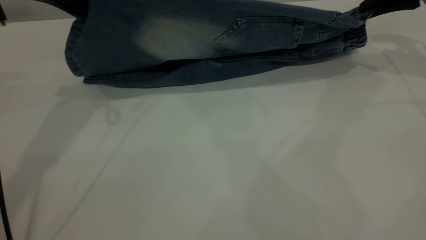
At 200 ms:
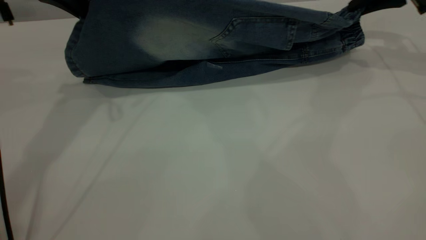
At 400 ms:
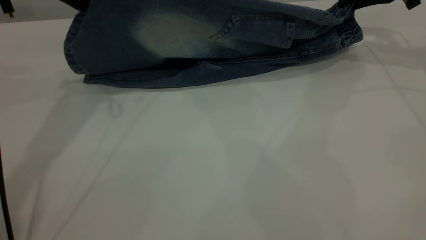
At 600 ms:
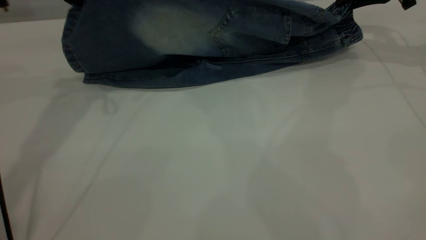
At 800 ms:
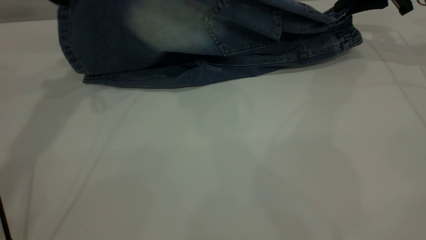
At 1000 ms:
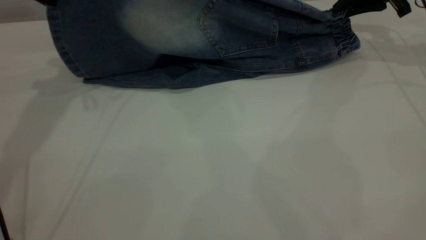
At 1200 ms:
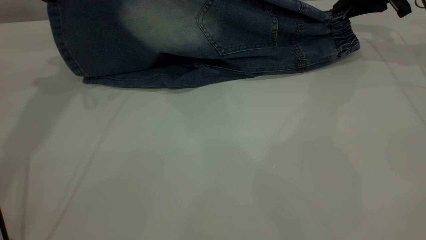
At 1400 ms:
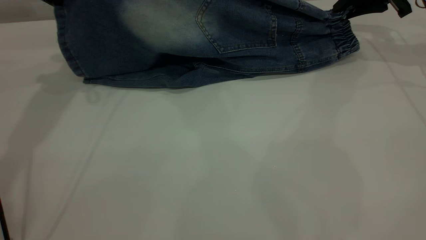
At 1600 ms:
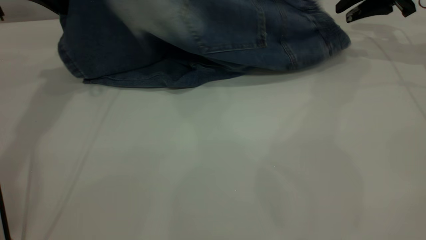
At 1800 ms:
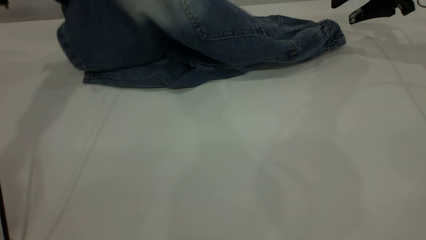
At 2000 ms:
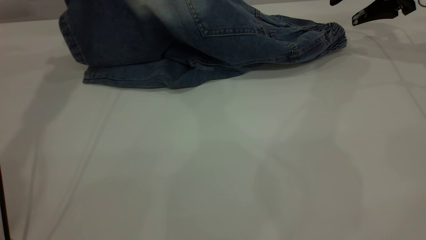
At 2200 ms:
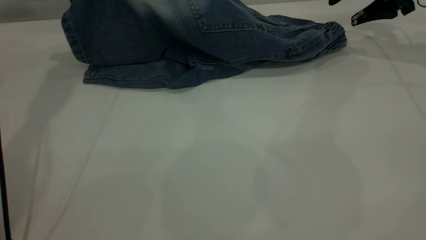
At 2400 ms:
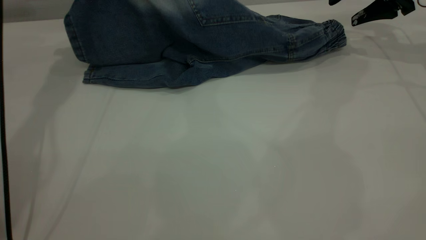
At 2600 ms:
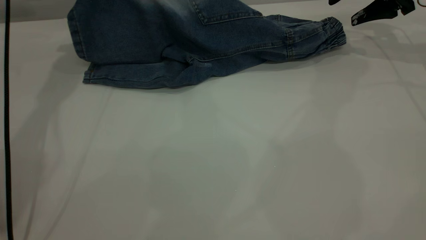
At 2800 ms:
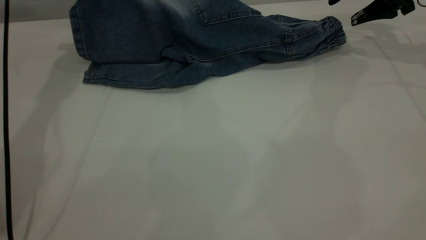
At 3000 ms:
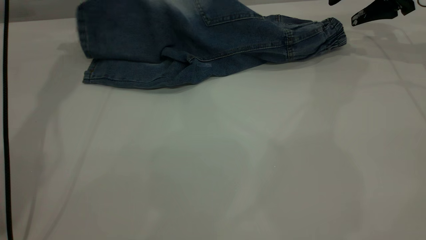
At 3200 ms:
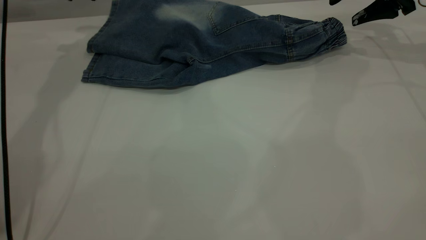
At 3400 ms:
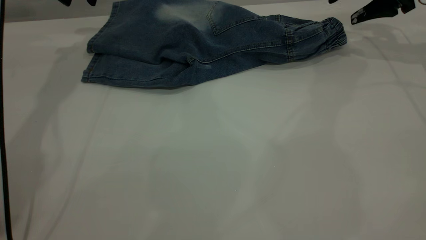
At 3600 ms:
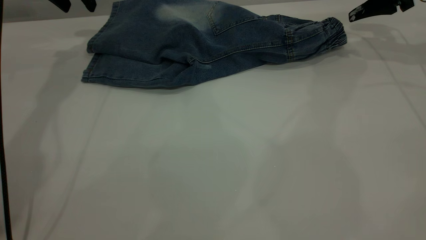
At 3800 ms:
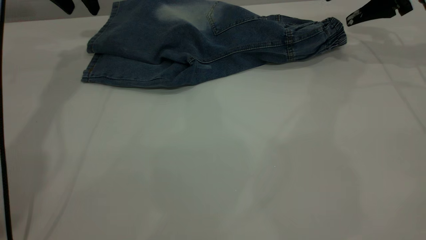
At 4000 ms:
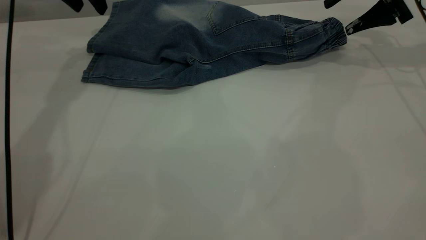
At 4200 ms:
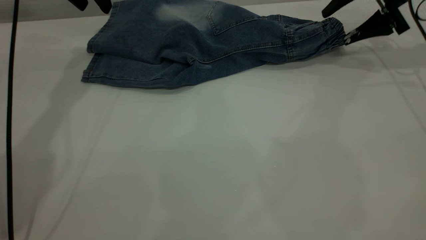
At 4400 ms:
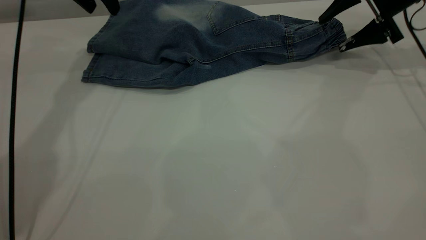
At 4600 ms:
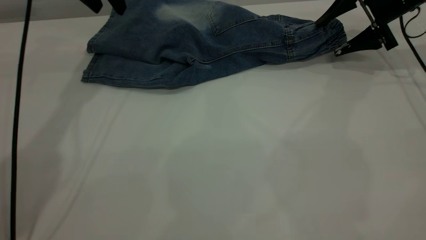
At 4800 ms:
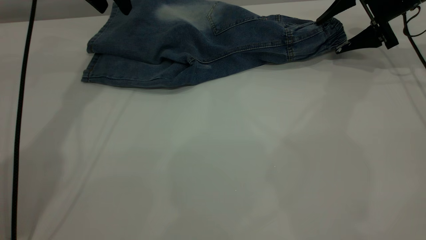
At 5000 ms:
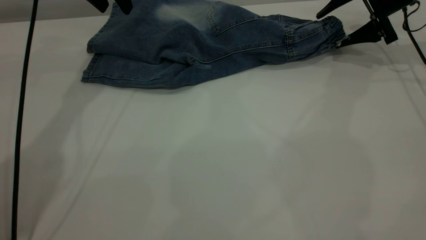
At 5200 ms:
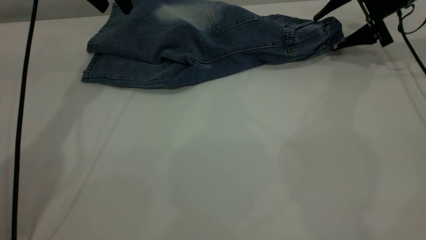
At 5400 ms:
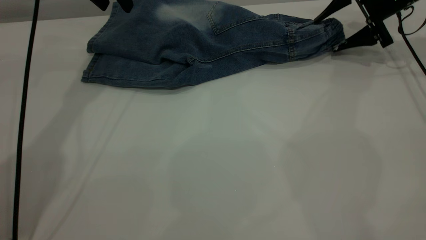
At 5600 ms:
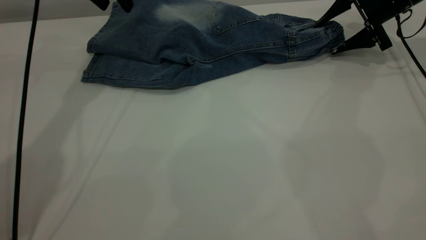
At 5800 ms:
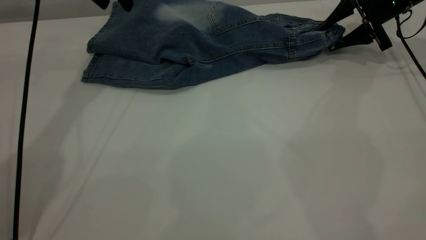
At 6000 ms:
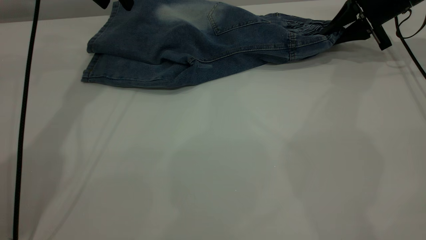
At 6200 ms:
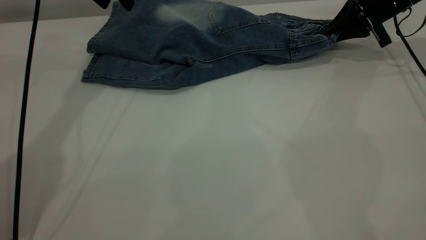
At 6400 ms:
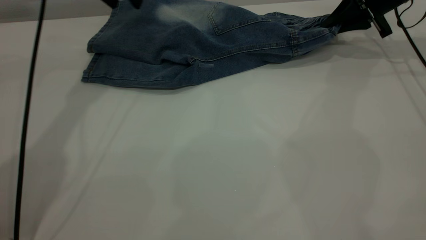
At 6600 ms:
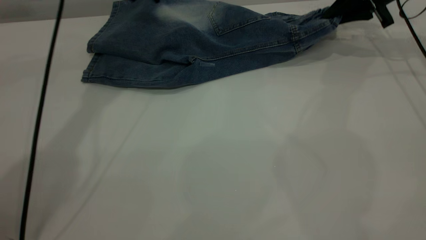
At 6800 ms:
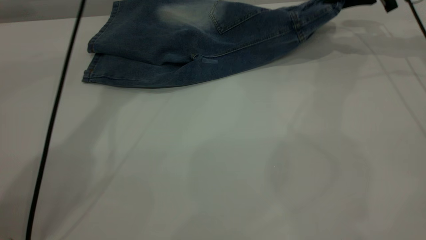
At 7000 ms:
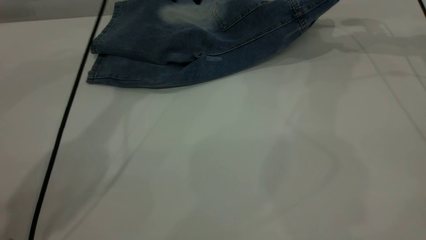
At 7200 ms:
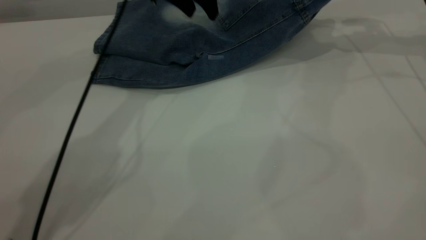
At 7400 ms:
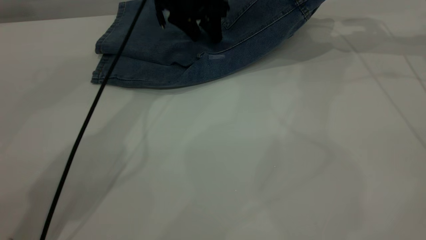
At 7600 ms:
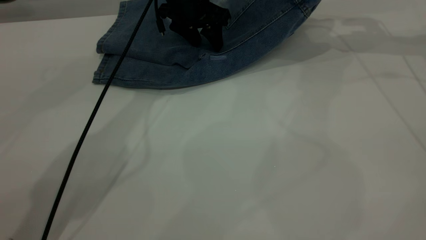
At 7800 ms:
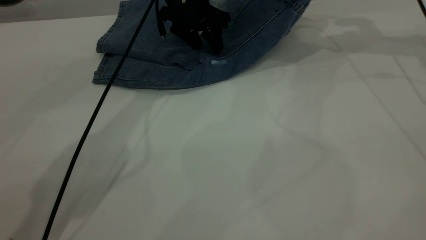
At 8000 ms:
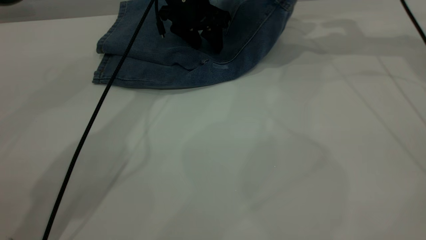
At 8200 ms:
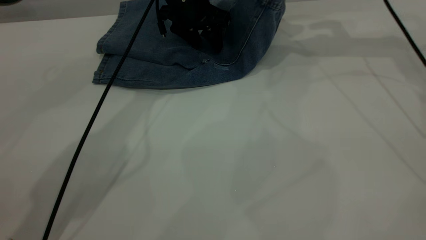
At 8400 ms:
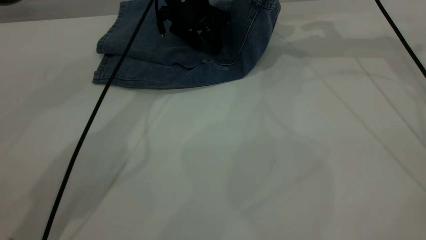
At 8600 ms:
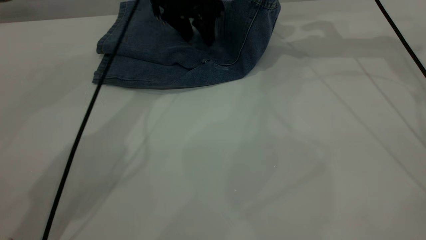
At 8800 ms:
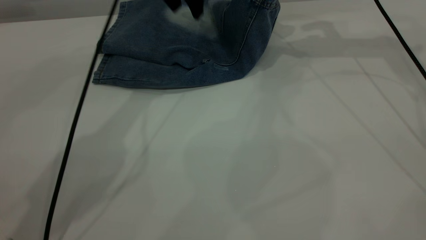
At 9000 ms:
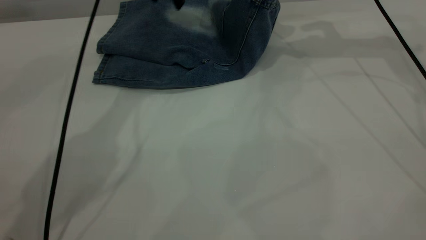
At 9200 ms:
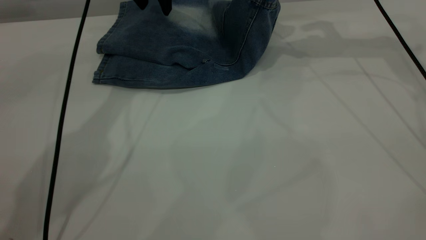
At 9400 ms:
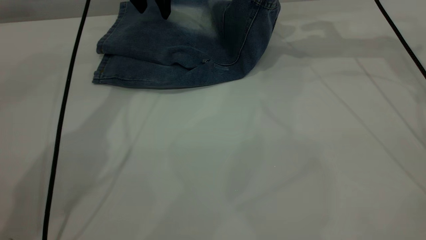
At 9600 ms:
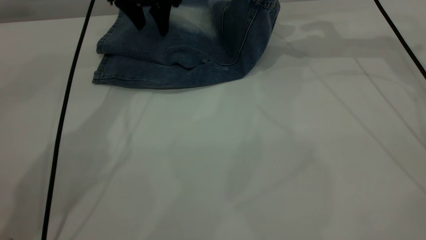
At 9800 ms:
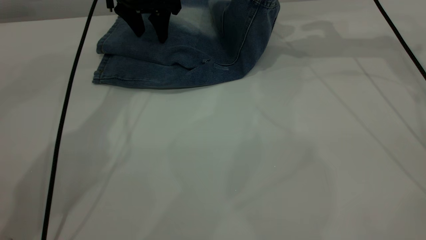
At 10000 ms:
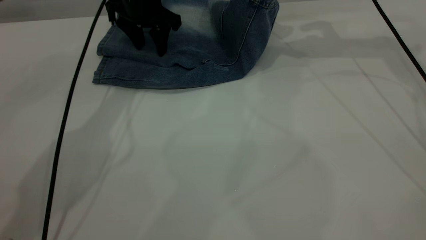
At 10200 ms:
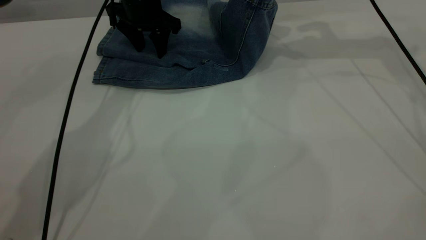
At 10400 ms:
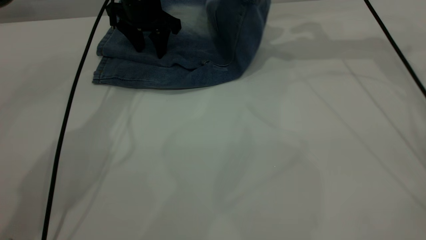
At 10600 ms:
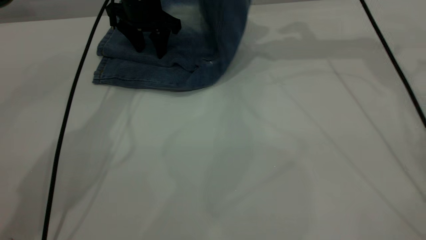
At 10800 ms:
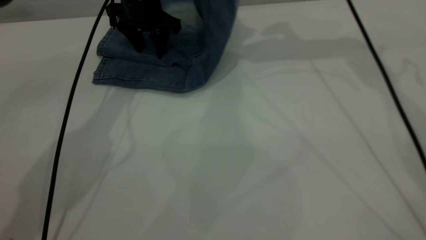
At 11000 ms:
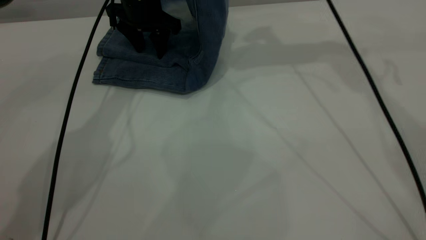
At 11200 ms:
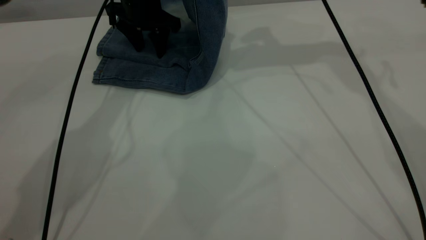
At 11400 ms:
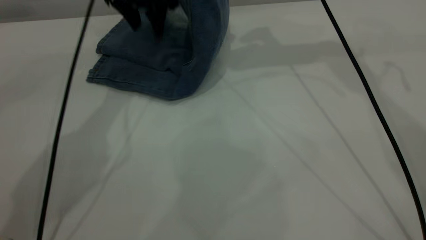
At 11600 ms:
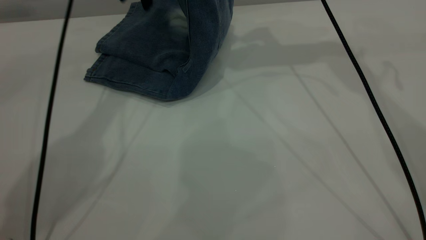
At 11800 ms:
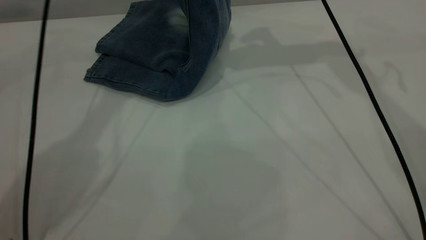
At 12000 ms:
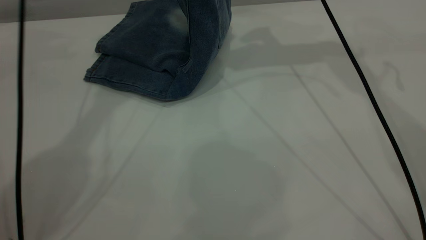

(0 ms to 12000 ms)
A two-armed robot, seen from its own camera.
Step, 0 ms - 3600 ms: Fold the bottom of the pants upward.
0 ms - 1600 ms: The right gripper opens, while the left gripper moves forward, approximately 5 cm.
1600 ms - 3000 ms: The left gripper travels forward by roughly 5 cm, and opens its fingers. Meanwhile the right gripper opens up.
3000 ms - 4400 ms: The left gripper shifts by some 5 cm.
4400 ms - 6000 ms: The right gripper closes.
6000 ms - 7600 ms: The left gripper heads to the right and downward, covering approximately 15 cm. Meanwhile the right gripper moves upward, about 10 cm.
7600 ms - 9000 ms: The right gripper goes about 10 cm to the left; the left gripper goes some 10 cm upward.
9000 ms - 10400 ms: The left gripper moves downward, approximately 10 cm.
10400 ms - 12000 ms: The left gripper shifts about 20 cm upward, while the right gripper heads to the left and upward, covering some 10 cm.

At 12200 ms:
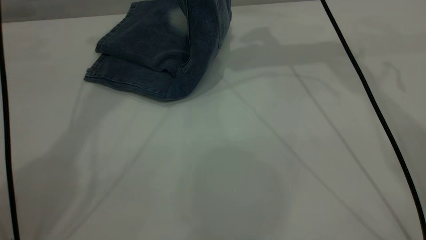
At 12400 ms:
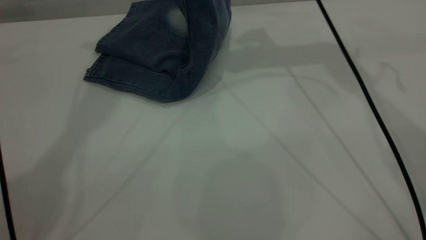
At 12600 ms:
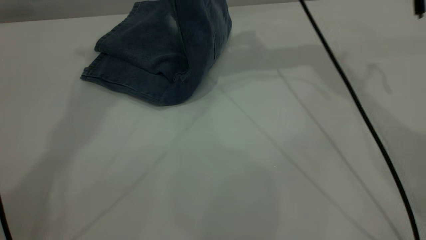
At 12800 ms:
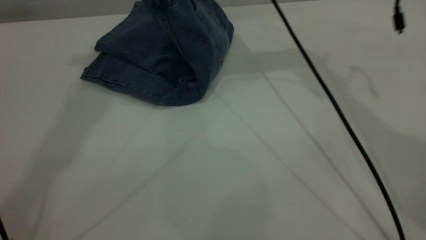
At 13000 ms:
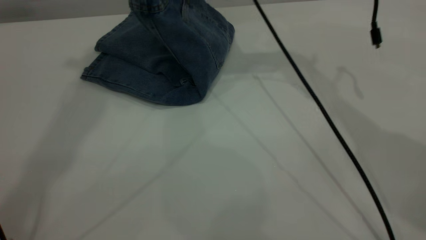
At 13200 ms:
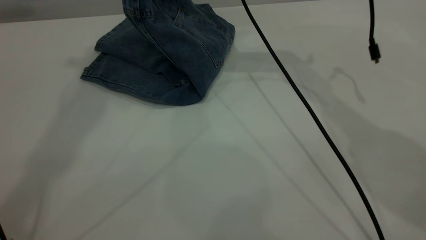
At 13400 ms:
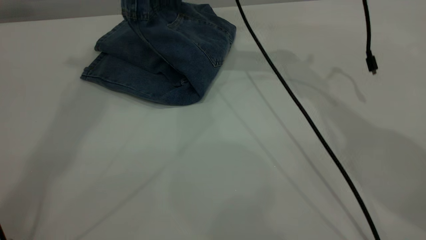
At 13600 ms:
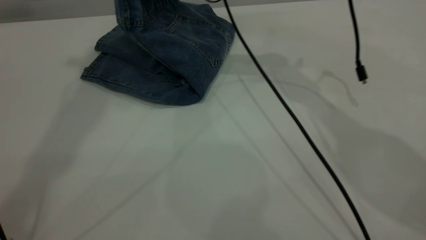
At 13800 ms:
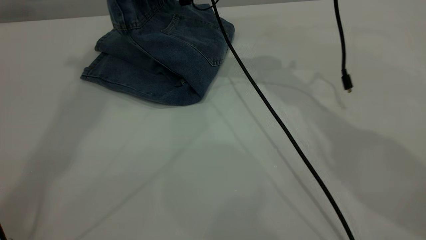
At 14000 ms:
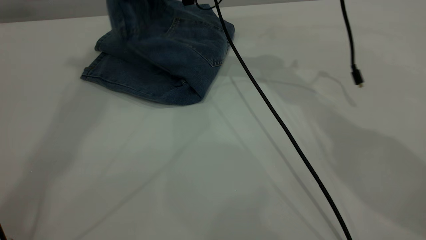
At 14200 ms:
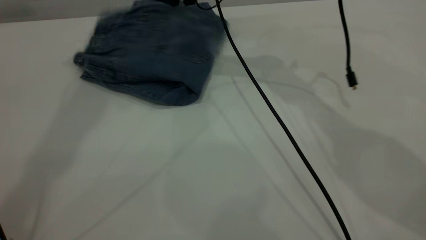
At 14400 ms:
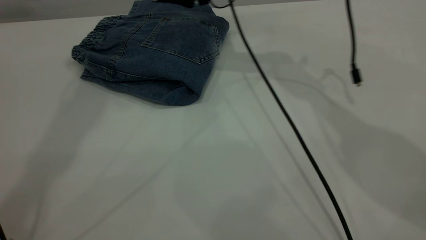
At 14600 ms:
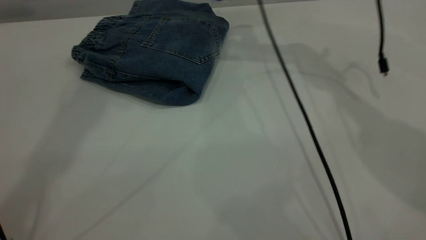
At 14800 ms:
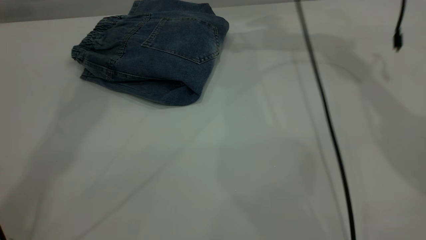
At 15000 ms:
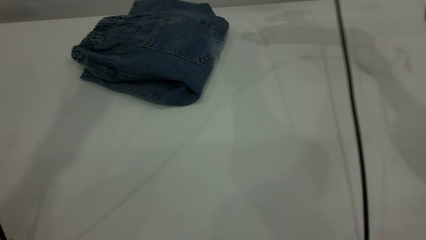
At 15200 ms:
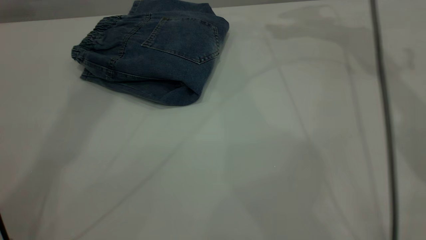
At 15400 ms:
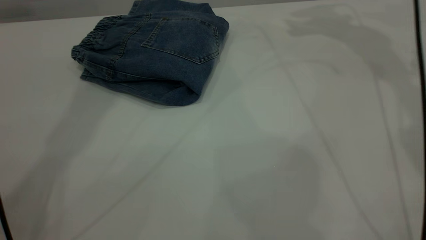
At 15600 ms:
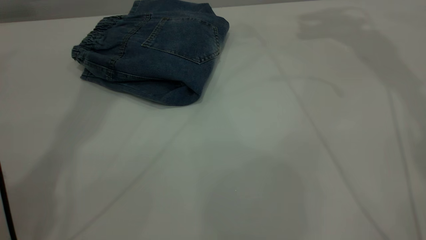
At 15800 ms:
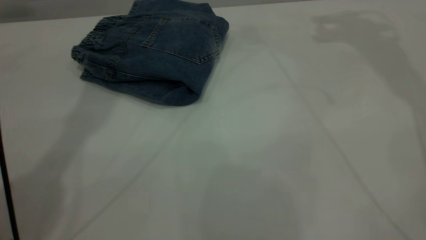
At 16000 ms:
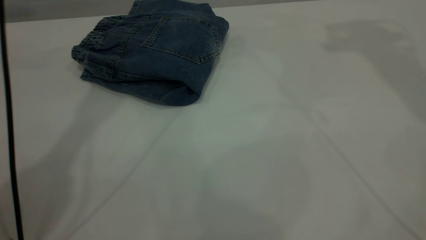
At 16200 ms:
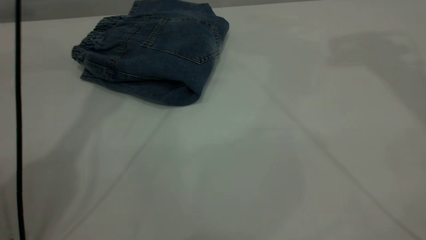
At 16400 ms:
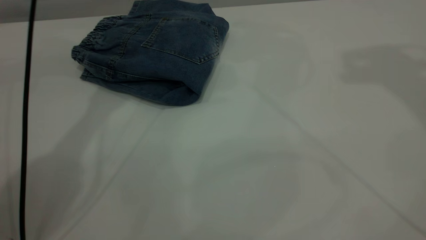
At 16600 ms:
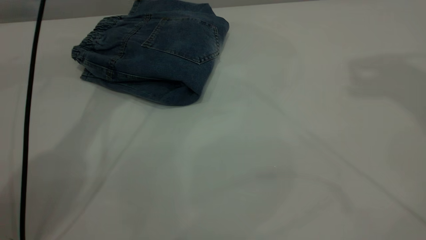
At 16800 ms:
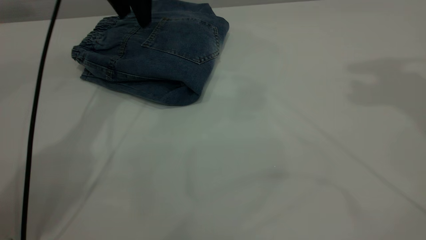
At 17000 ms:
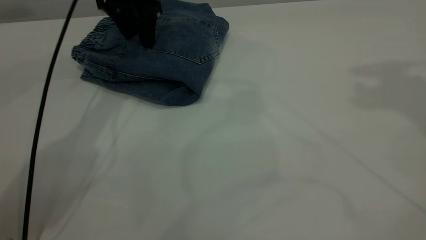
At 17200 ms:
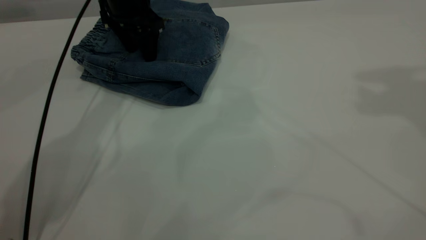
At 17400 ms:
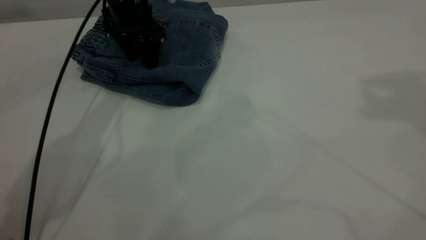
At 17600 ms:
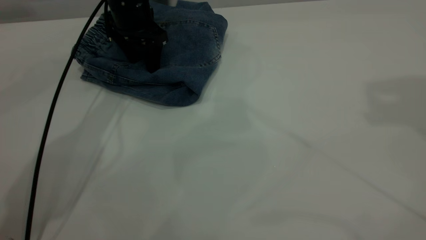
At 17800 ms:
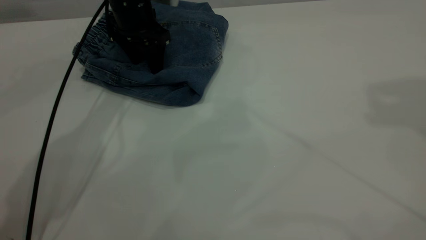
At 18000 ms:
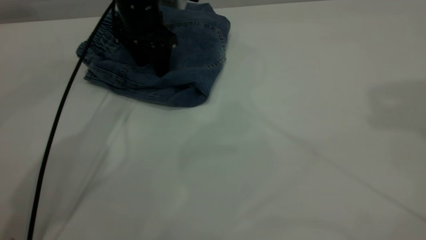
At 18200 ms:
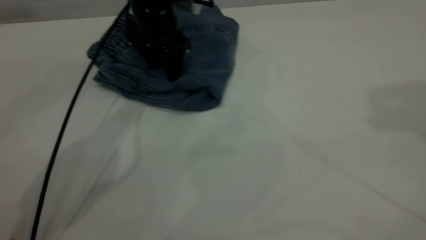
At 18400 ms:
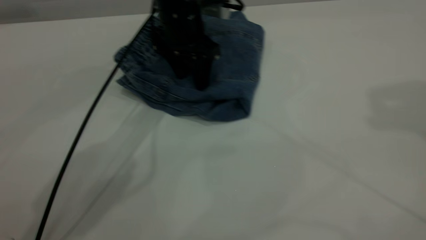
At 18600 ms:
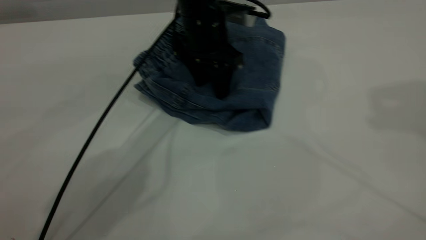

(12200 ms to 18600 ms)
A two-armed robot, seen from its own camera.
Step, 12200 ms - 16000 ms: Fold your pants from right to left.
12200 ms - 13800 ms: The right gripper is displaced downward and to the left by about 15 cm. The left gripper goes roughly 20 cm upward and backward.
13800 ms - 15400 ms: The left gripper shifts by roughly 5 cm. The right gripper is displaced to the right and upward by about 30 cm, and opens up.
15400 ms - 17000 ms: The left gripper goes approximately 30 cm downward. Meanwhile the right gripper is displaced backward and upward by roughly 20 cm.
17000 ms - 18600 ms: The left gripper travels to the right, downward and backward by roughly 15 cm. The right gripper moves upward, approximately 5 cm.